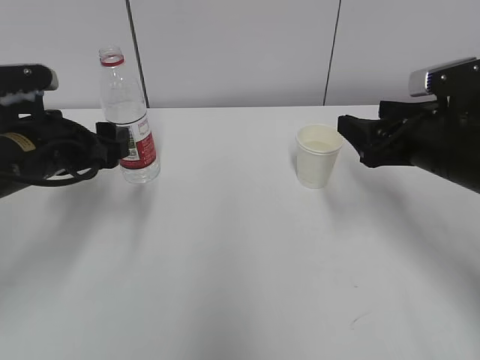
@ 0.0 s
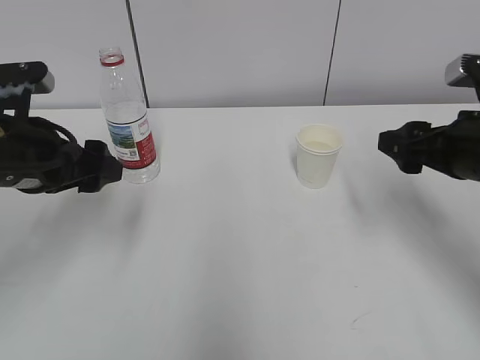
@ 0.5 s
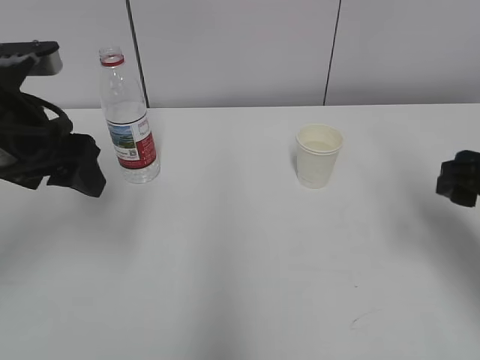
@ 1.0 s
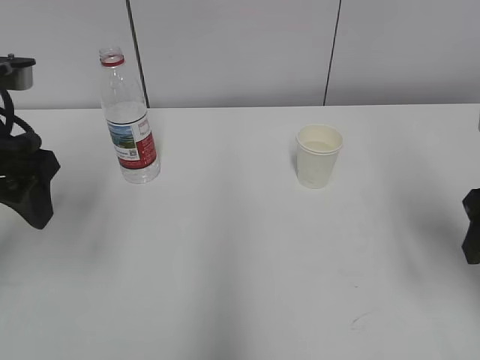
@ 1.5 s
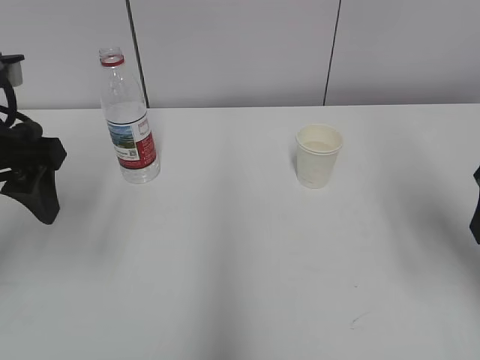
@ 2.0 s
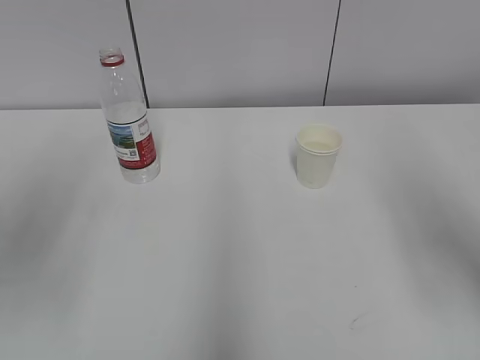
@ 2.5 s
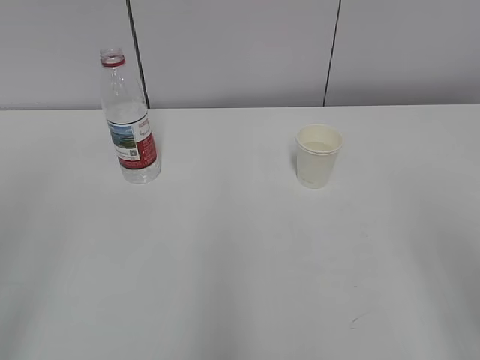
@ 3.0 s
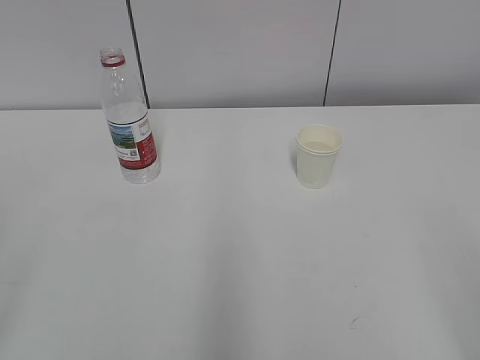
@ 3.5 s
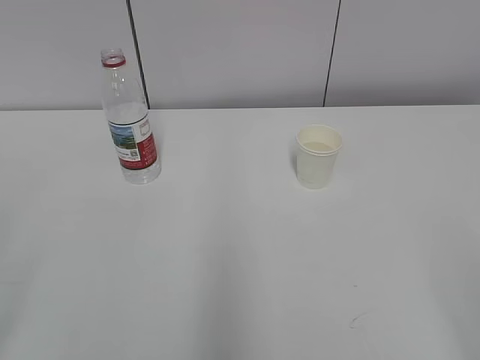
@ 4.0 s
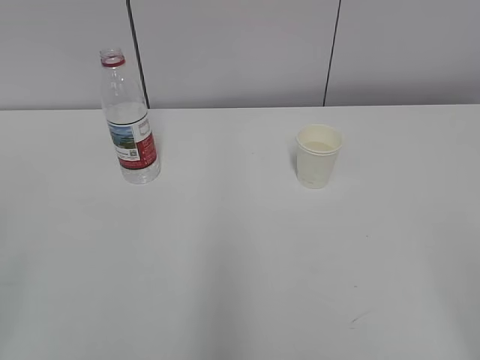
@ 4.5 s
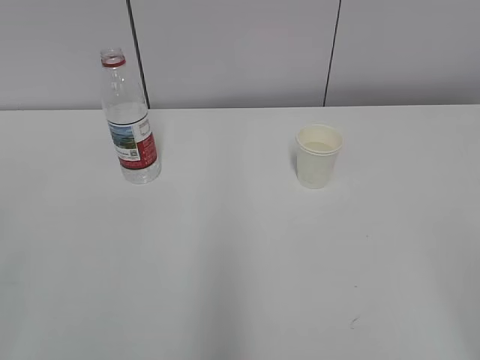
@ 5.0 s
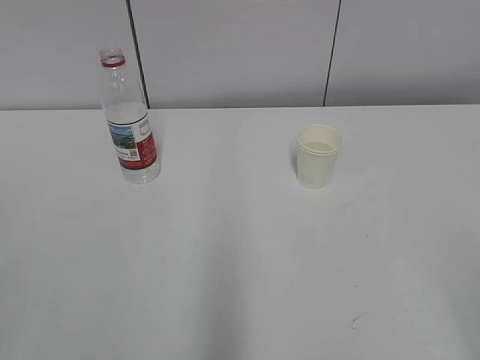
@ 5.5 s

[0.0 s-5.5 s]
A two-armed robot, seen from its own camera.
0.0 to 2.0 s: Both grippers travel together upward and backward, some 10 cm.
2.0 to 3.5 s: The two grippers go about 25 cm backward.
